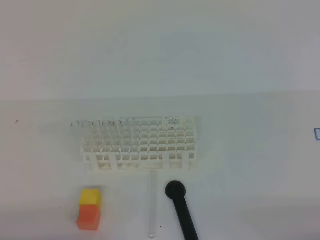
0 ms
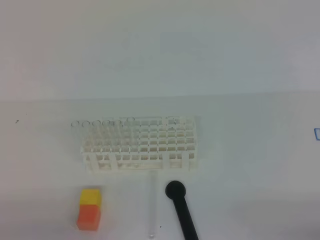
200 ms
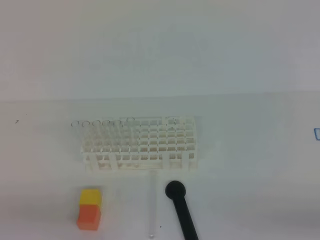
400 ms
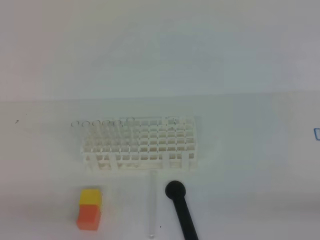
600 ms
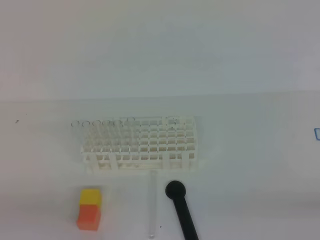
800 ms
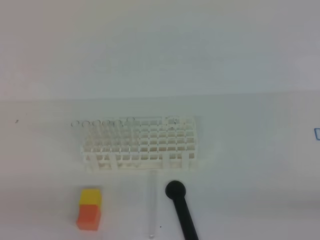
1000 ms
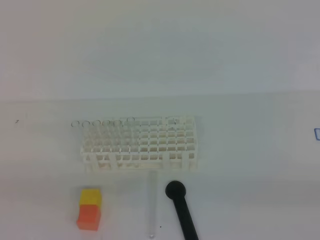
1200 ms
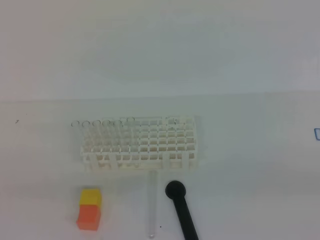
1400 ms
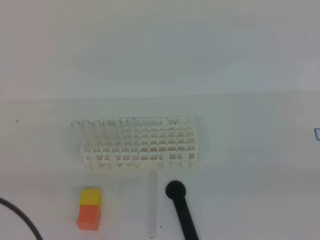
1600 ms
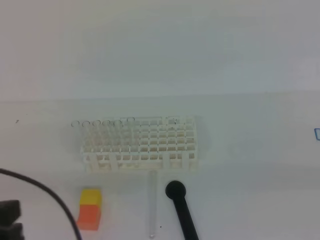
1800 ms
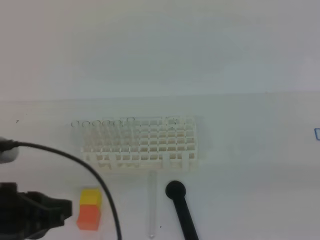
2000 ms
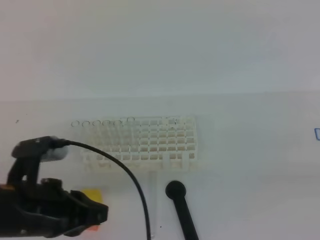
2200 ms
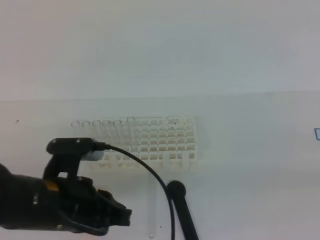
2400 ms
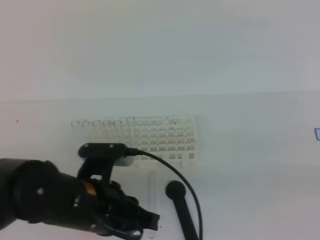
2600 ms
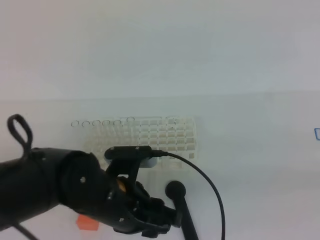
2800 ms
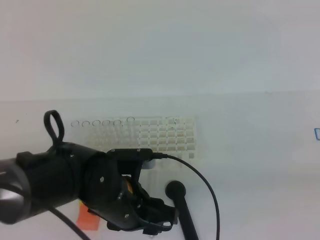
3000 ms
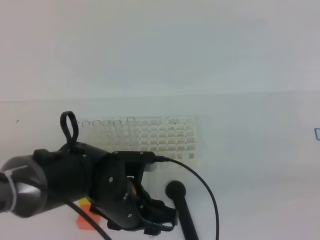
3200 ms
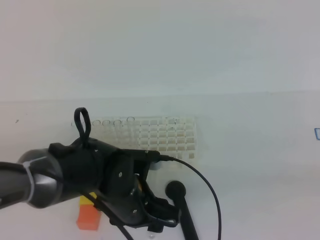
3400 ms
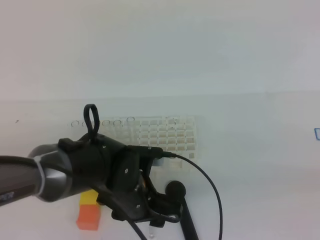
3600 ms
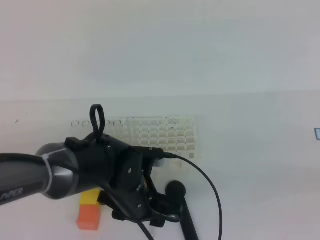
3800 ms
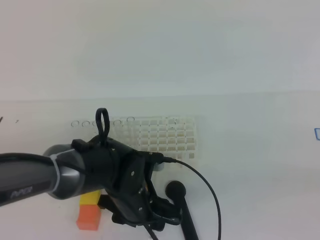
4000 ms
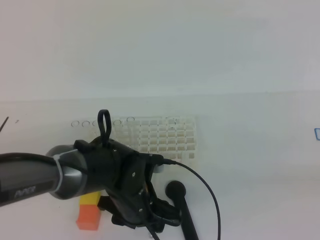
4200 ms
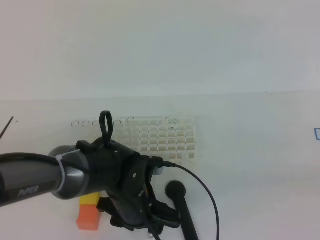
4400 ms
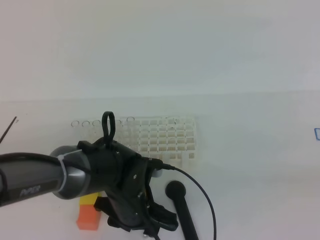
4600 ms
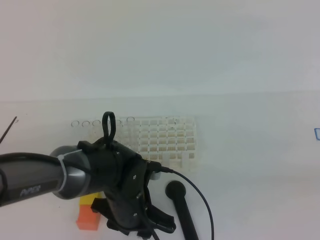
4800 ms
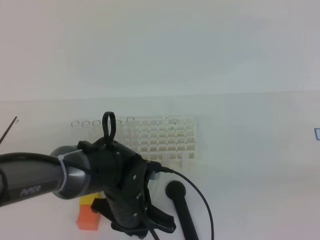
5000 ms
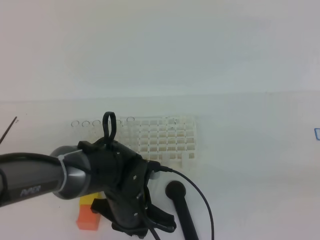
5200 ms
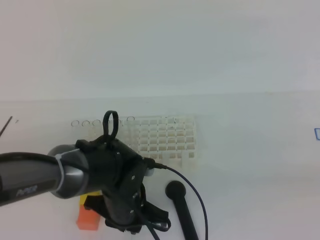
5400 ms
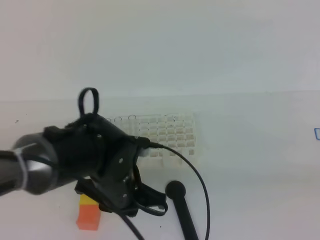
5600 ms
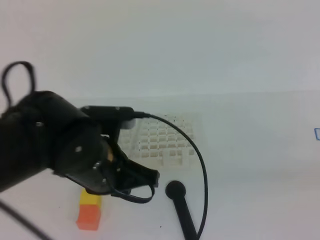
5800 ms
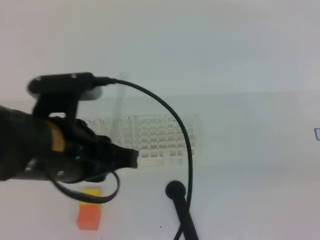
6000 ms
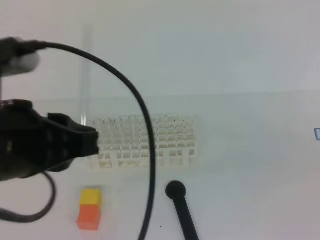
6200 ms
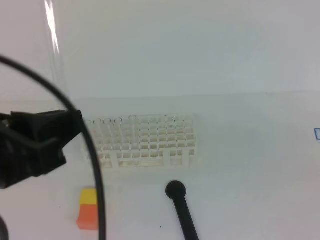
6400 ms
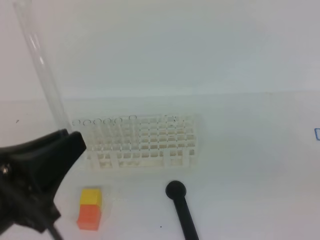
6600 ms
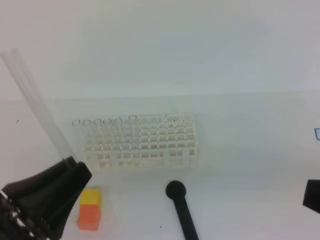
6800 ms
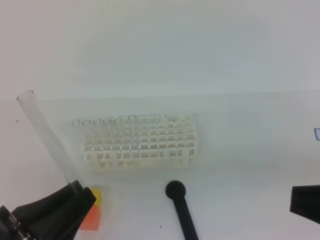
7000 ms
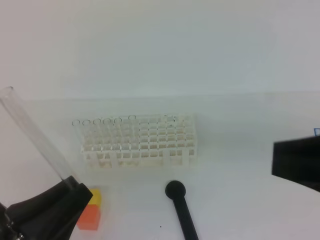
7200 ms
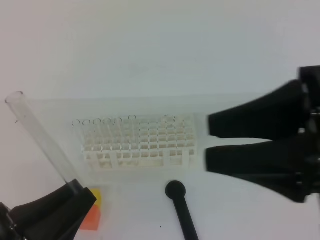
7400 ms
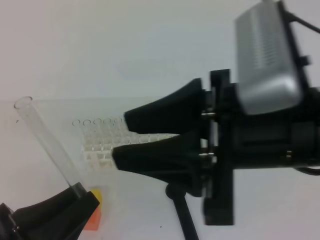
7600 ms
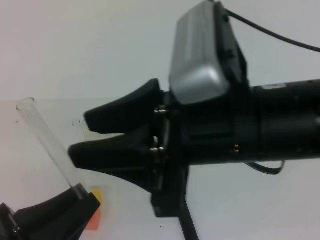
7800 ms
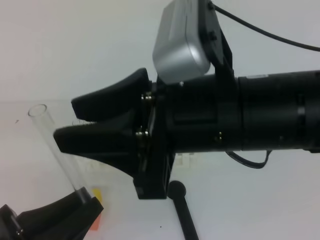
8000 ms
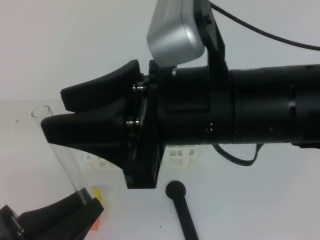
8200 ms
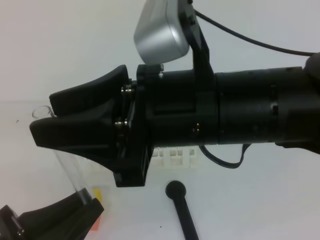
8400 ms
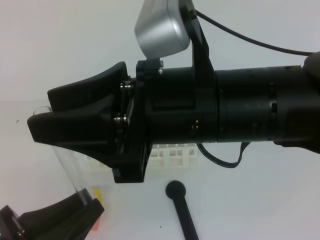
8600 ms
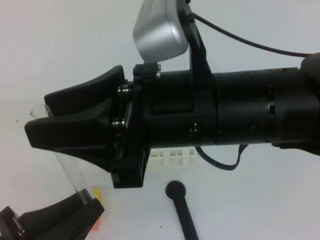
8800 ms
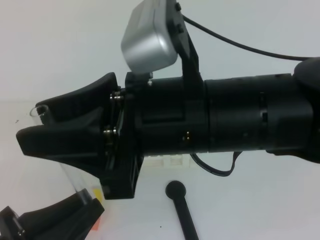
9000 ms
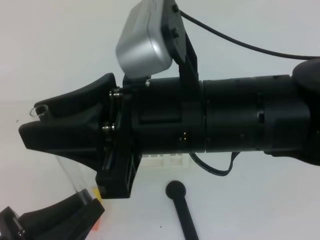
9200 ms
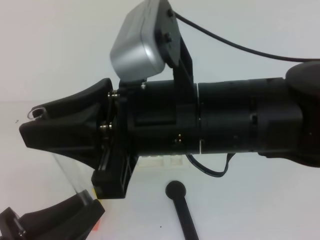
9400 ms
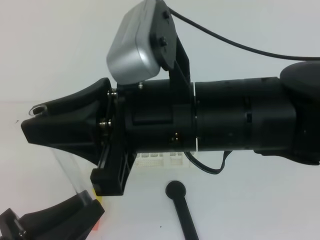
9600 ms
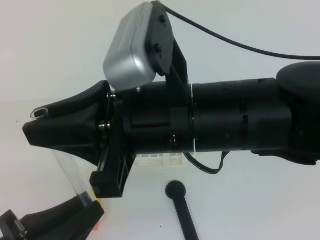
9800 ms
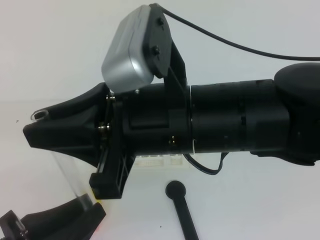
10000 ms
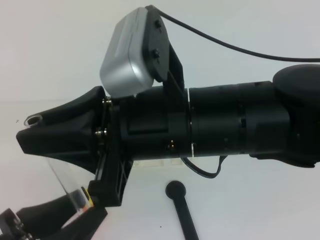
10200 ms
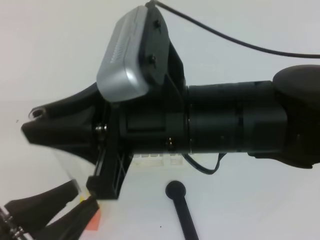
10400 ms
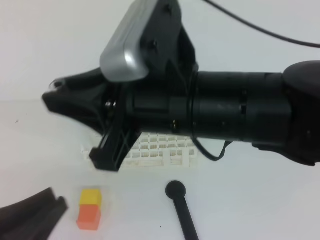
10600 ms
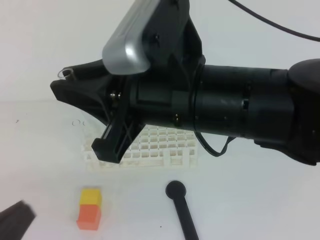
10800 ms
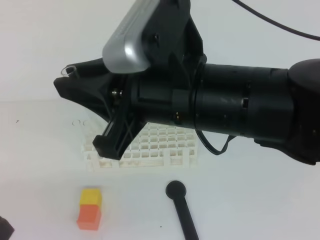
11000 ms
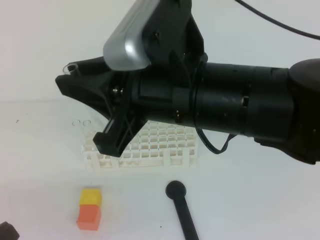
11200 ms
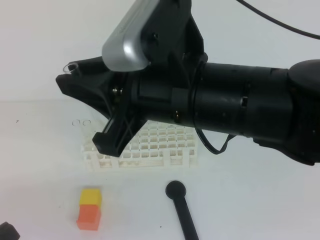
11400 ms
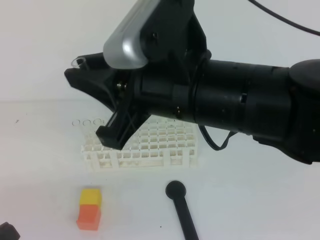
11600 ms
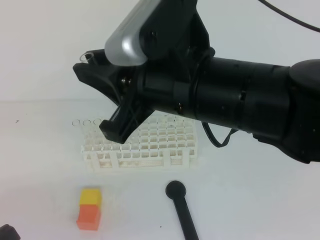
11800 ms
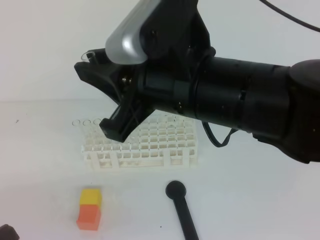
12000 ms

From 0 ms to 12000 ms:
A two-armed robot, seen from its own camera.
From 0 ms to 1600 ms: The left gripper goes about 15 cm upward.
From 1600 ms to 3000 ms: The left gripper goes about 25 cm to the right, forward and downward, and opens.
From 3000 ms to 4400 ms: The left gripper ends up roughly 5 cm from where it was.
From 4400 ms to 6000 ms: The left gripper is displaced upward by about 20 cm, and closes up.
From 6000 ms to 7600 ms: The left gripper moves backward, downward and to the left, roughly 15 cm. The right gripper moves to the left, upward and forward, roughly 20 cm, and opens its fingers.
From 7600 ms to 9000 ms: The right gripper is displaced to the left by roughly 10 cm.
From 9000 ms to 10400 ms: The left gripper opens its fingers, while the right gripper closes.
From 10400 ms to 12000 ms: The left gripper is displaced to the left by approximately 5 cm, and closes its fingers.

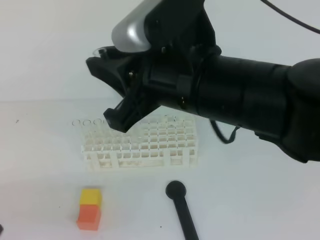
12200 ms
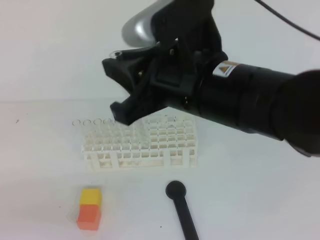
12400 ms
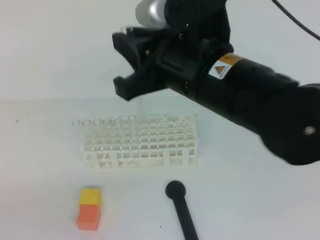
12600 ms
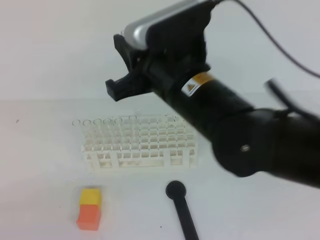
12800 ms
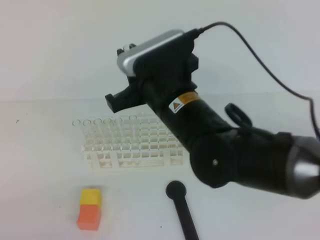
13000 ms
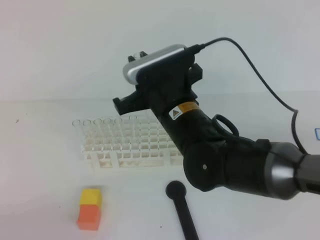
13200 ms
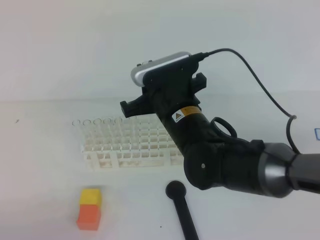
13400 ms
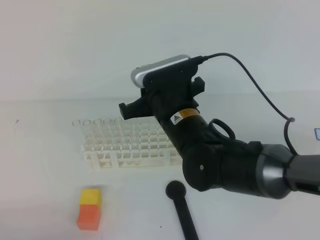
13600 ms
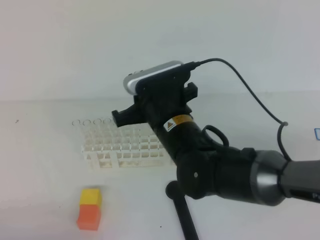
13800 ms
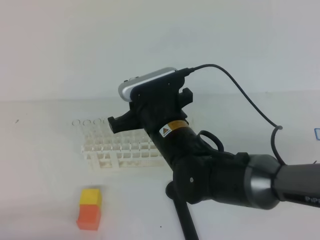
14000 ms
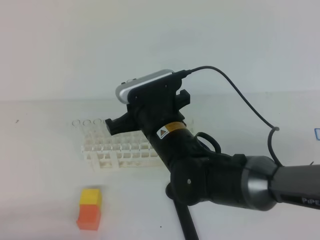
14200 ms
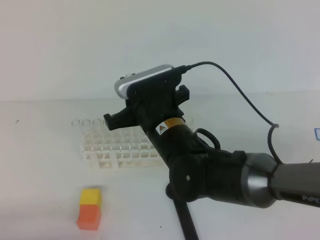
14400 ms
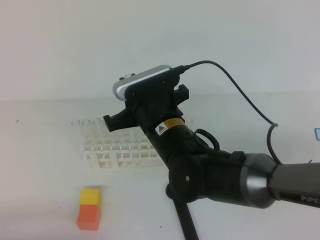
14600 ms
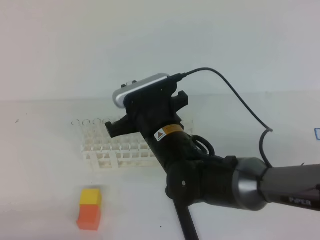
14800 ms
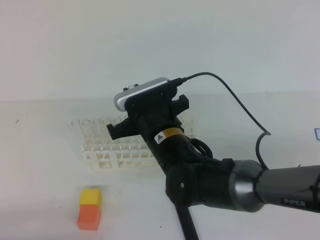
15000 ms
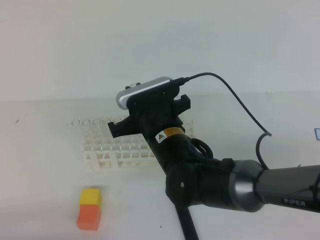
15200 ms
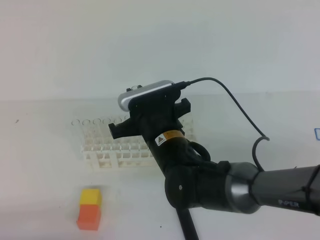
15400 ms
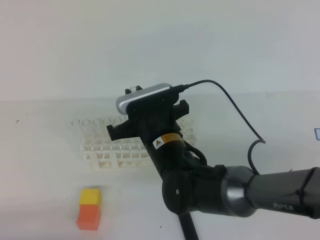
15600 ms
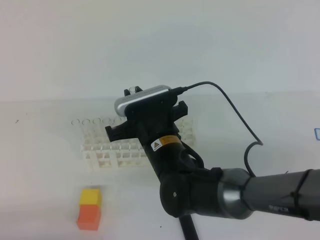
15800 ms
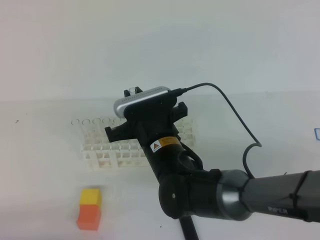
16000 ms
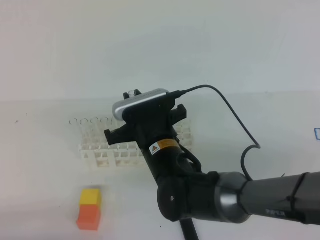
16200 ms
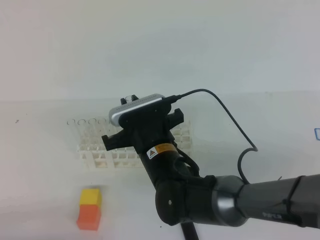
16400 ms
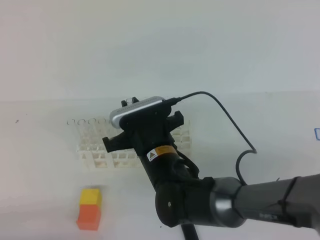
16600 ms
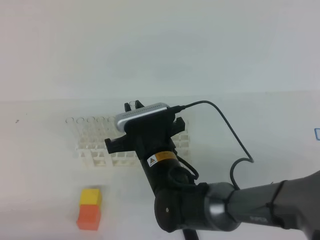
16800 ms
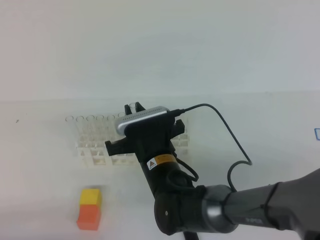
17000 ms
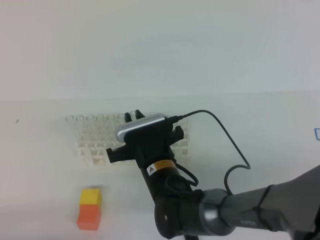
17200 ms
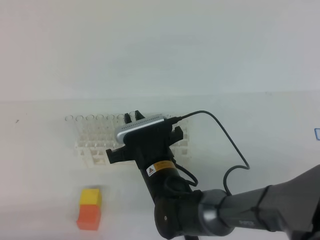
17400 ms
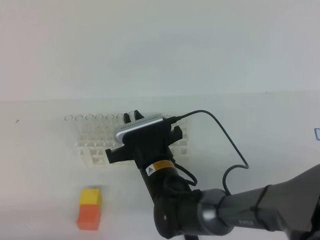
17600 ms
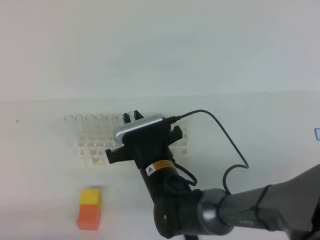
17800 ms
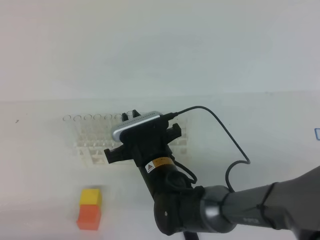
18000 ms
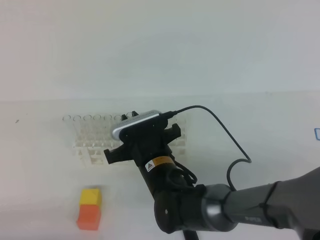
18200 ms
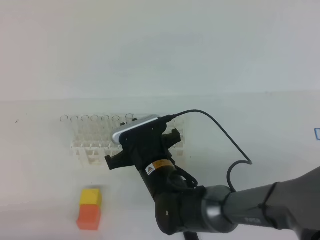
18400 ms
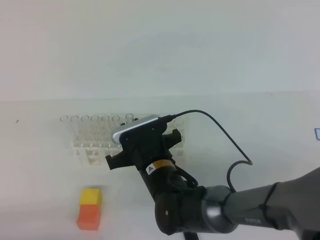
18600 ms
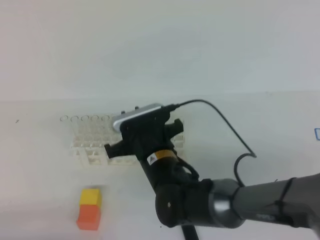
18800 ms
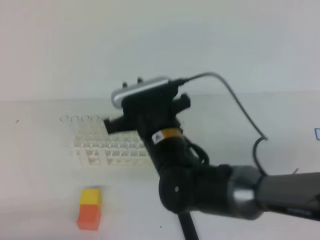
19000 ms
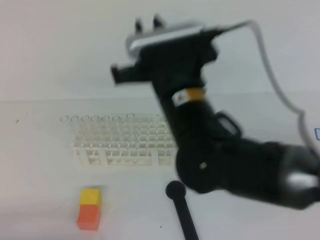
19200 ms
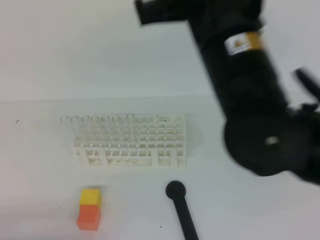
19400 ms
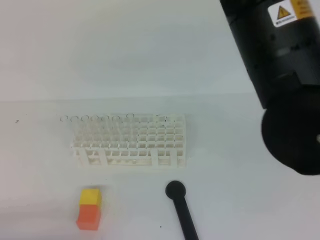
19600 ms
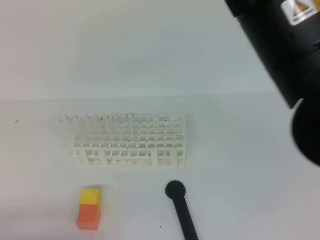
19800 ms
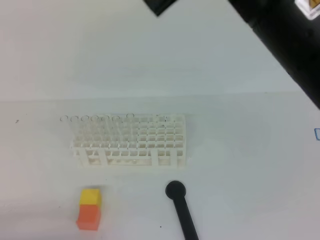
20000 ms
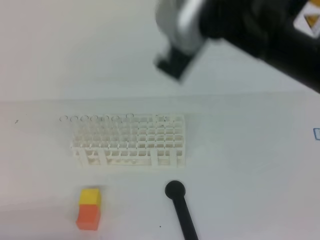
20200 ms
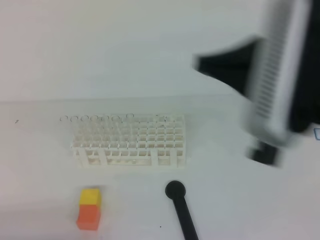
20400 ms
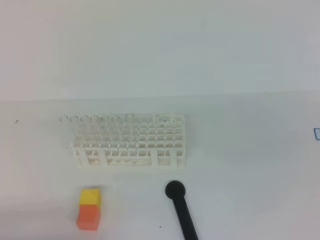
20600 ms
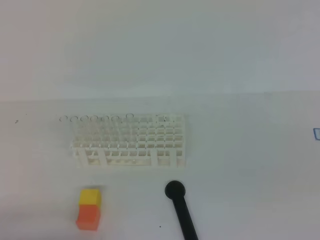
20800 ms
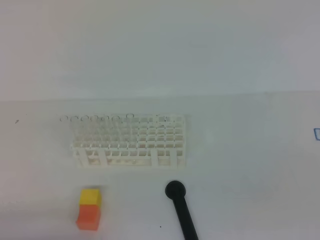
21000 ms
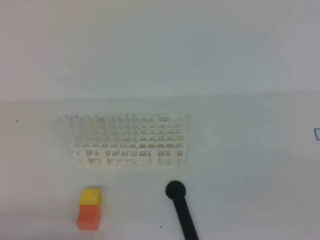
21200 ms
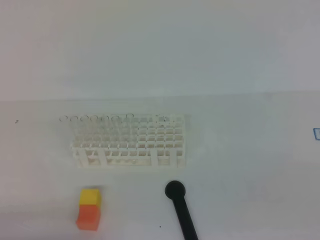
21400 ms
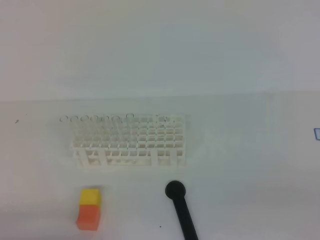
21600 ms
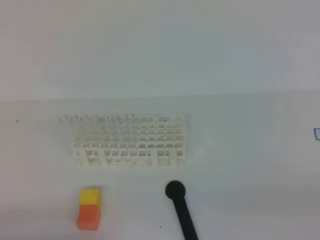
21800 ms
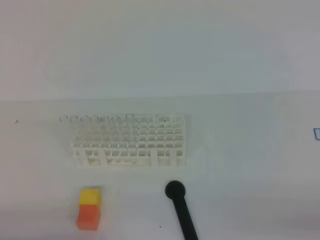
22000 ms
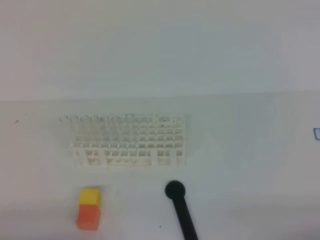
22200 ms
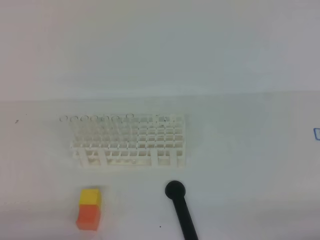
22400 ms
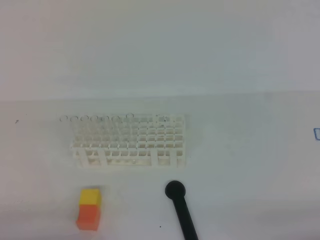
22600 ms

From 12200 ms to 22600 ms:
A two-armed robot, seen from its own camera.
From 12200 ms to 13600 ms: The right gripper goes some 15 cm downward and forward; the left gripper shifts some 10 cm downward.
From 13600 ms to 15200 ms: The grippers stay close to where they were, moving slightly.
From 15200 ms to 16600 ms: The grippers make only small movements.
From 16600 ms to 18200 ms: The grippers make only small movements.
From 18200 ms to 19600 ms: The right gripper travels upward by some 30 cm, and closes up.
From 19600 ms to 21200 ms: The right gripper travels to the right, backward and downward by about 35 cm.
